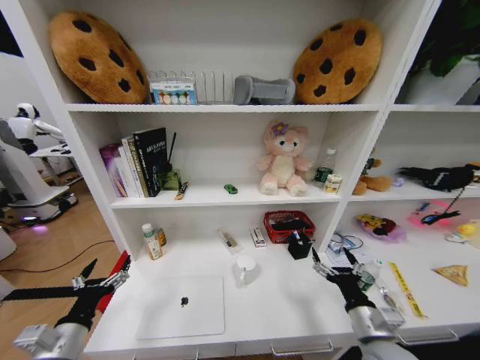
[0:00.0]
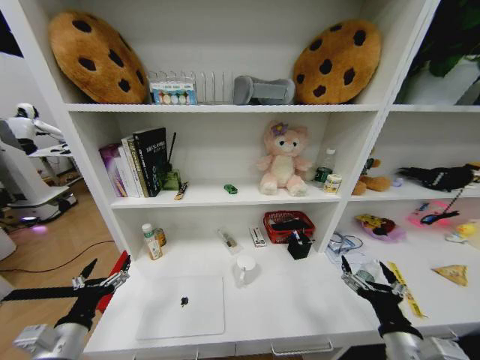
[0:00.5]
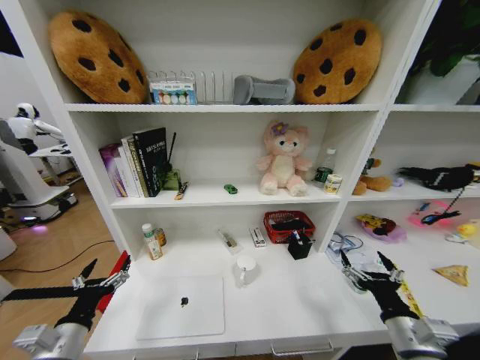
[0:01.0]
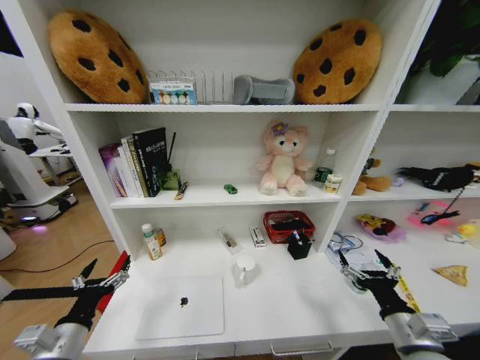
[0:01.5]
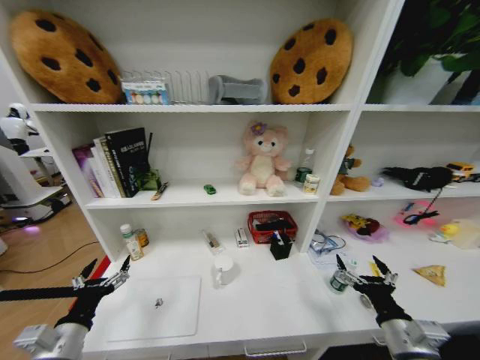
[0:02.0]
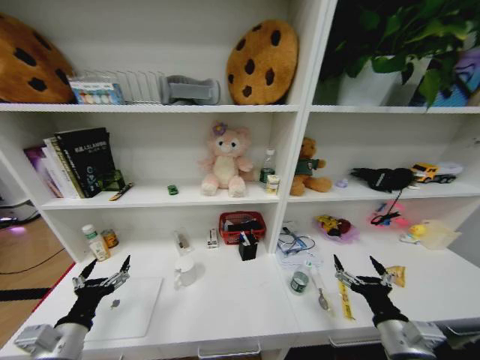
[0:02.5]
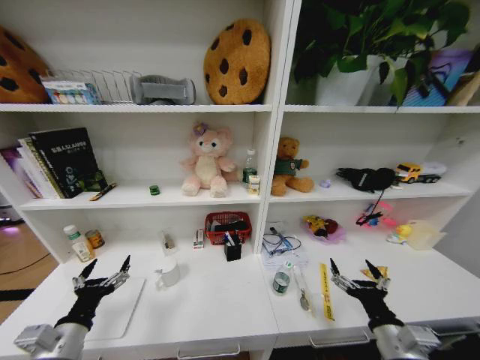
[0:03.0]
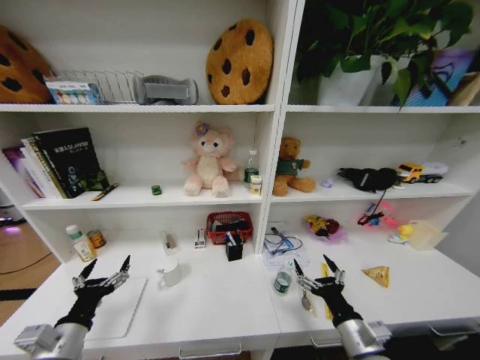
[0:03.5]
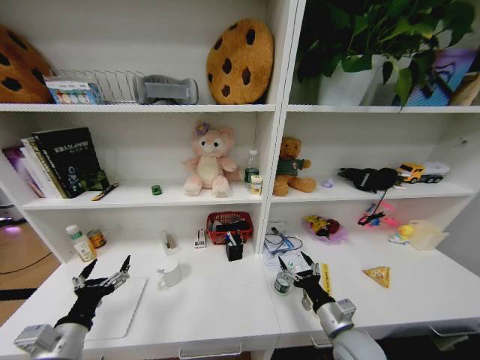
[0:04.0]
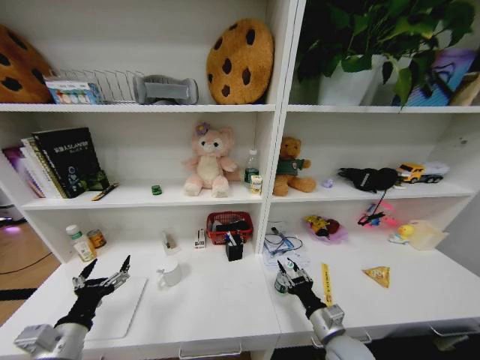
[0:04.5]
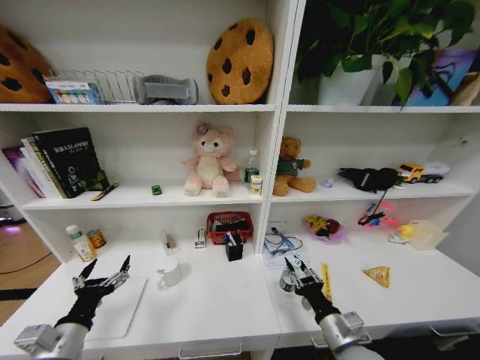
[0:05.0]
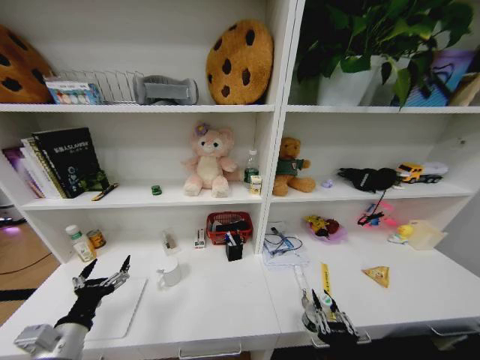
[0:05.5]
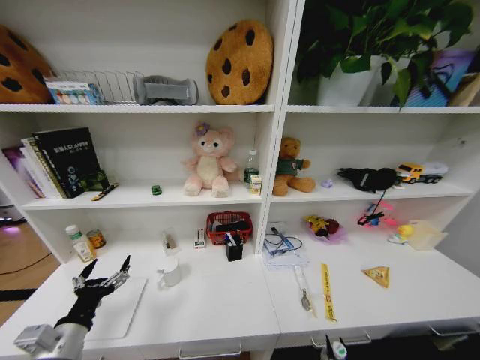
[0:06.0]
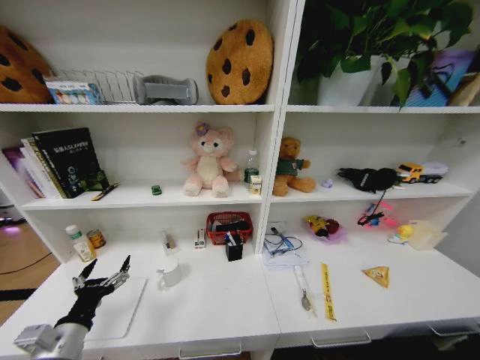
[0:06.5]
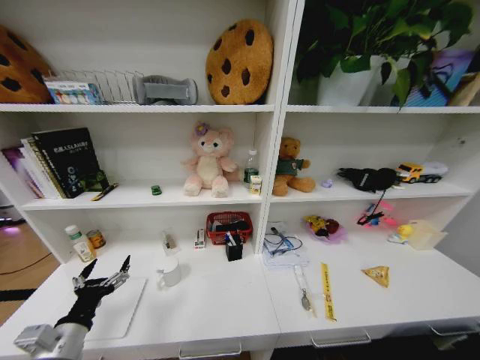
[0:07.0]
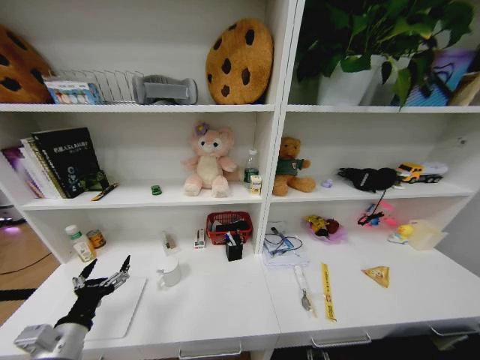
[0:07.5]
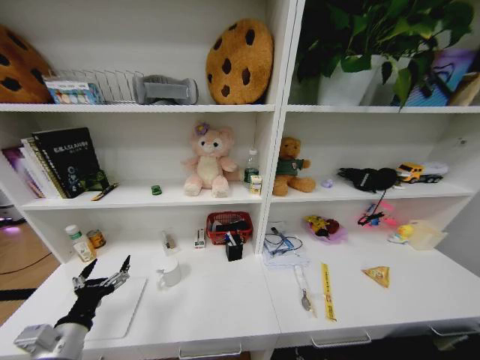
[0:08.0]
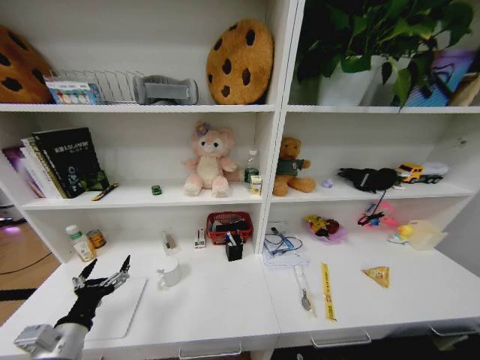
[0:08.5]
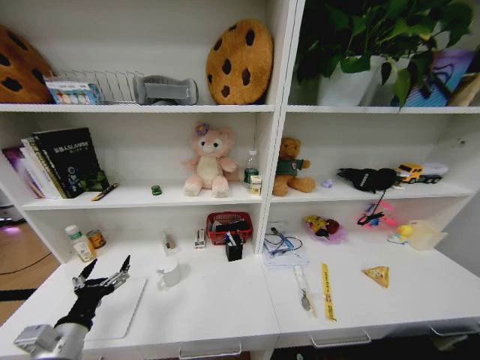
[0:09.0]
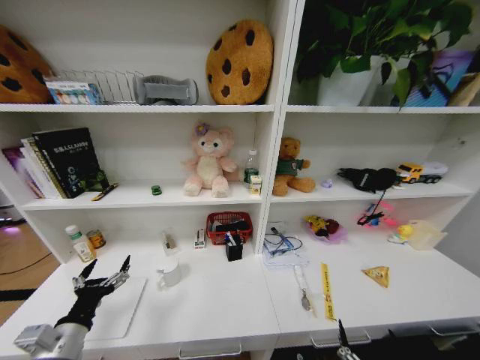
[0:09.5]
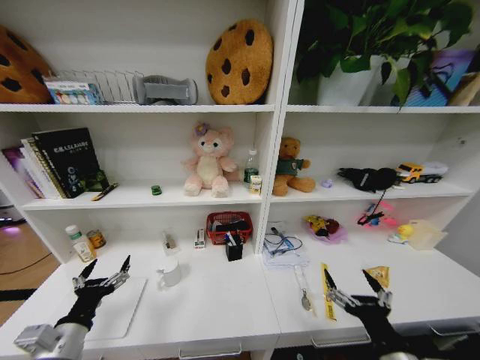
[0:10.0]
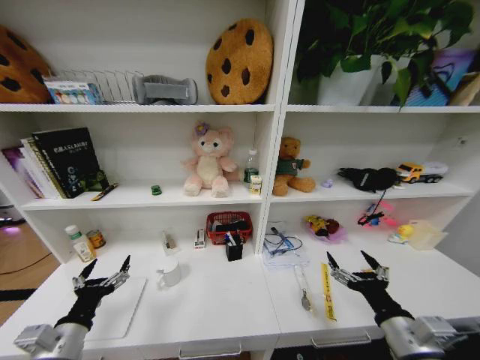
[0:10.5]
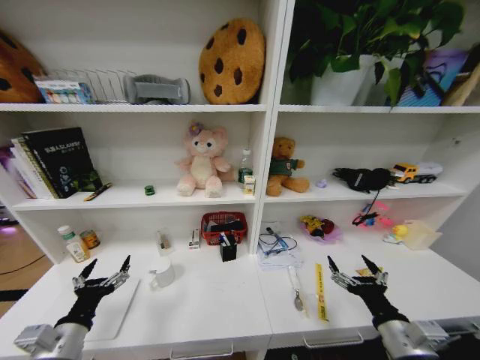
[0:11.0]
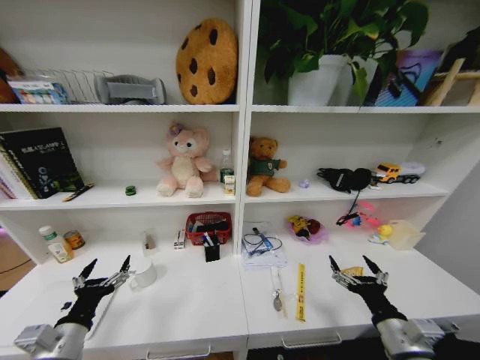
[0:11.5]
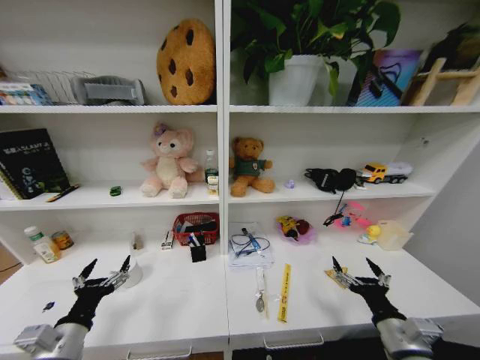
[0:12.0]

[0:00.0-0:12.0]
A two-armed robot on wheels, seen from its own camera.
Task of the whole recording: Organize the objects on the table.
0:00.0 to 0:02.0: The right gripper shifts by approximately 5 cm.
0:02.0 to 0:04.0: The right gripper shifts approximately 10 cm to the left, downward and forward.
0:04.0 to 0:06.0: The right gripper travels backward by about 25 cm, and closes its fingers.
0:08.0 to 0:10.0: The right gripper moves upward, some 40 cm.
0:10.0 to 0:12.0: The right gripper goes approximately 10 cm forward and to the right.

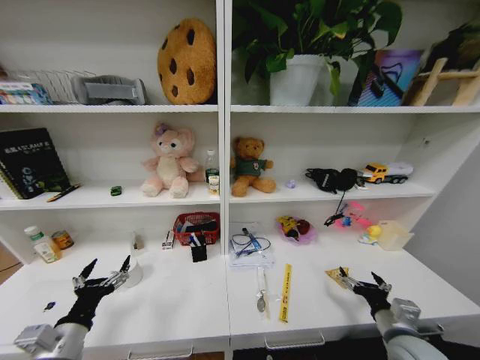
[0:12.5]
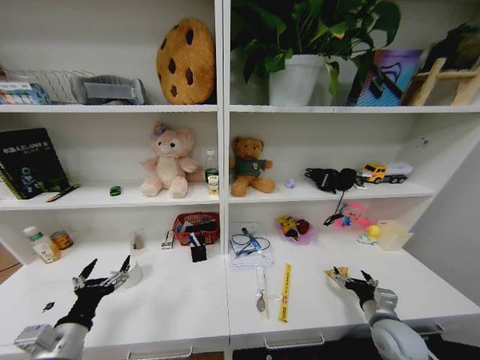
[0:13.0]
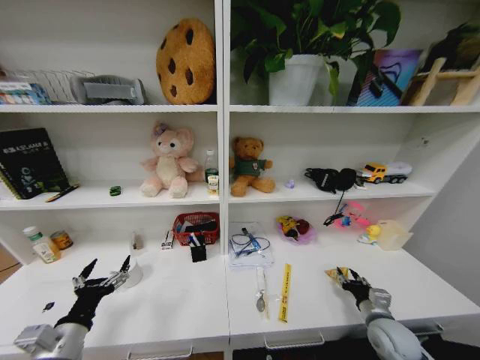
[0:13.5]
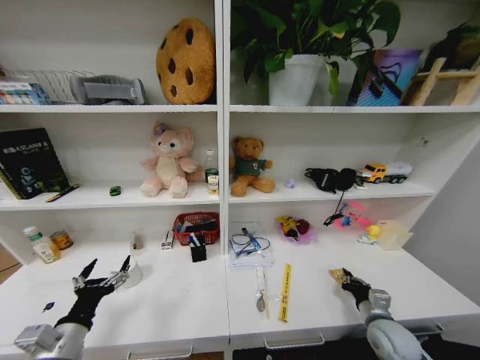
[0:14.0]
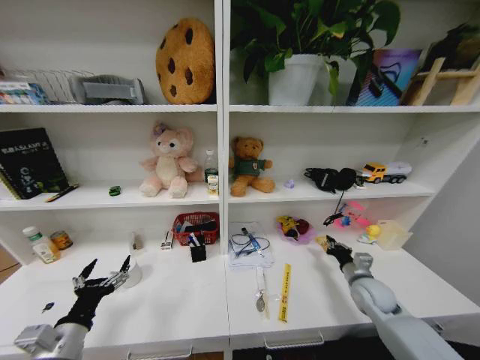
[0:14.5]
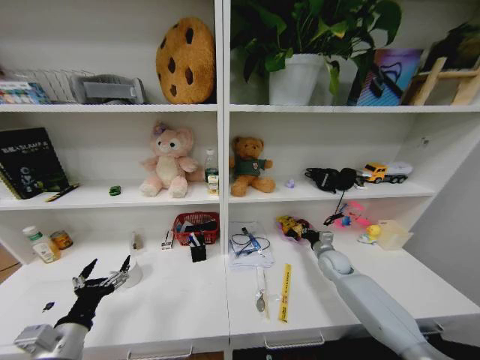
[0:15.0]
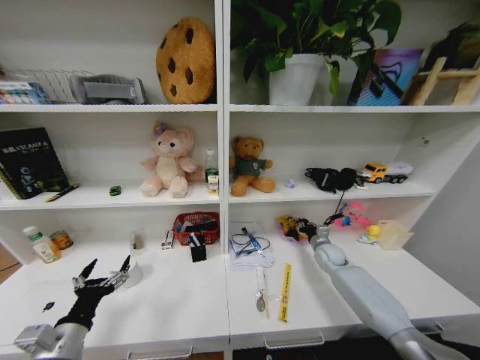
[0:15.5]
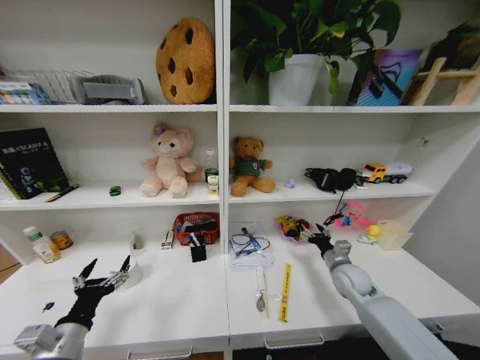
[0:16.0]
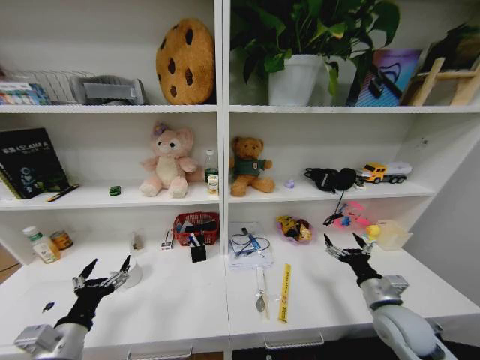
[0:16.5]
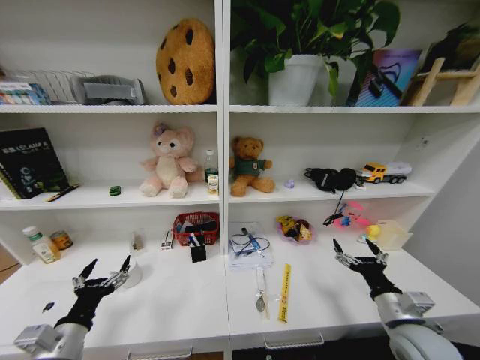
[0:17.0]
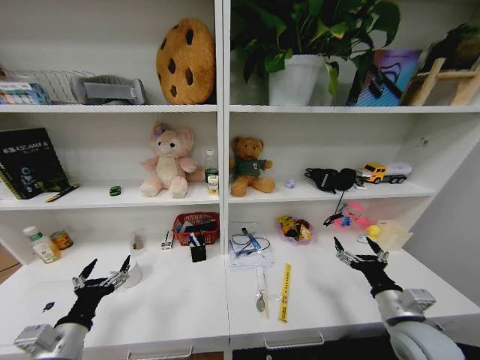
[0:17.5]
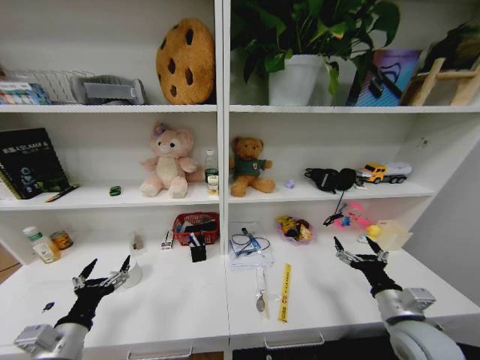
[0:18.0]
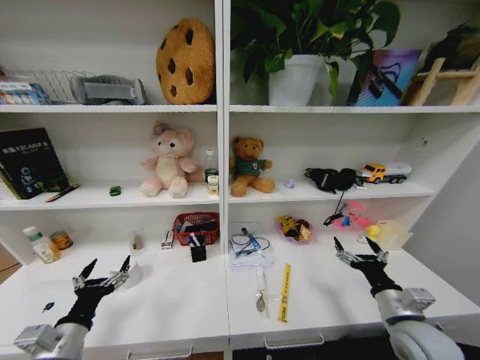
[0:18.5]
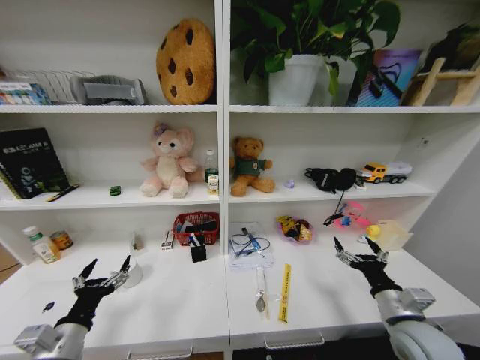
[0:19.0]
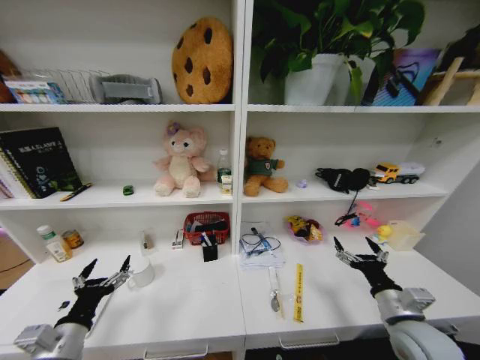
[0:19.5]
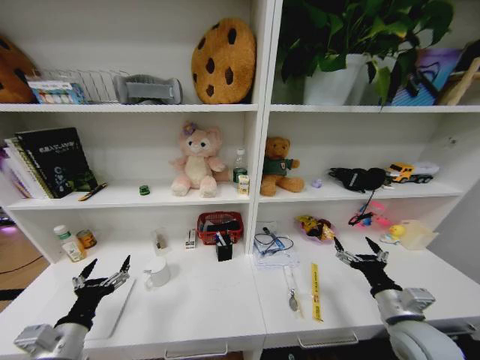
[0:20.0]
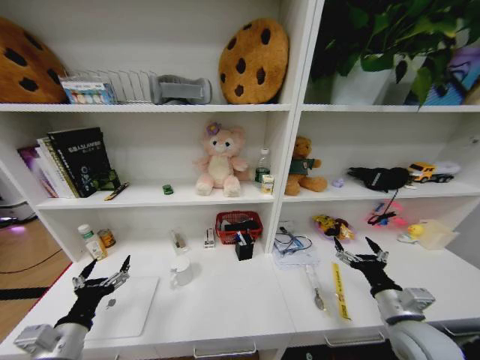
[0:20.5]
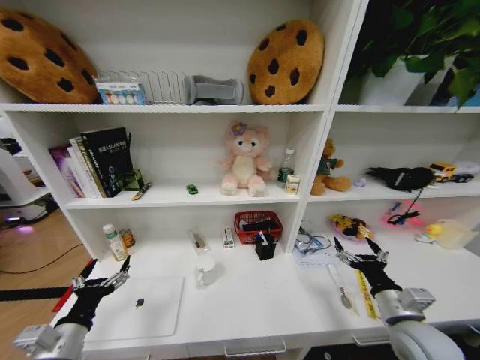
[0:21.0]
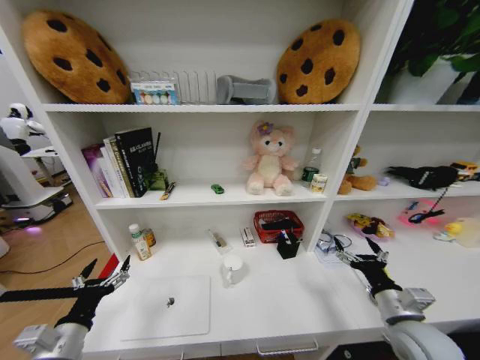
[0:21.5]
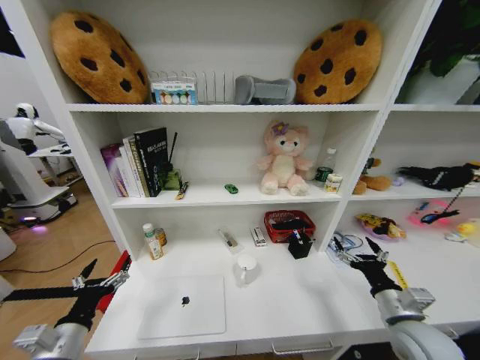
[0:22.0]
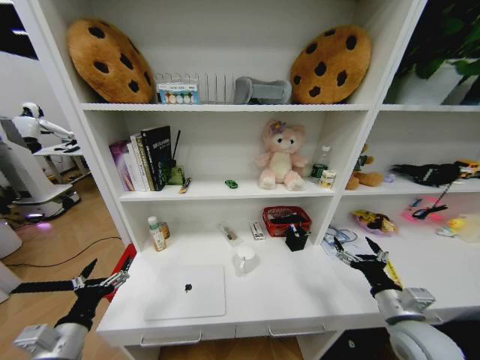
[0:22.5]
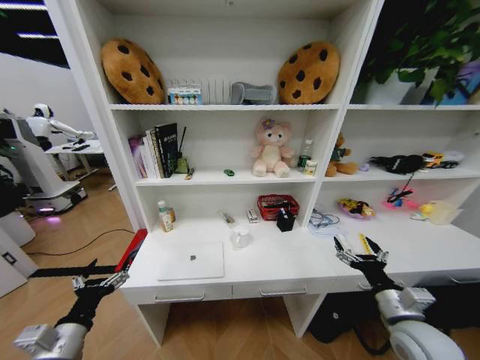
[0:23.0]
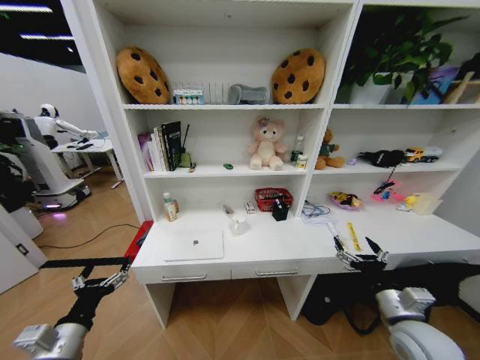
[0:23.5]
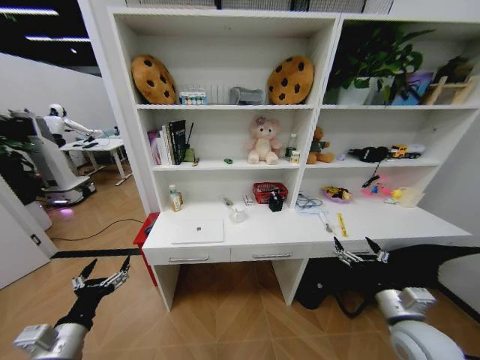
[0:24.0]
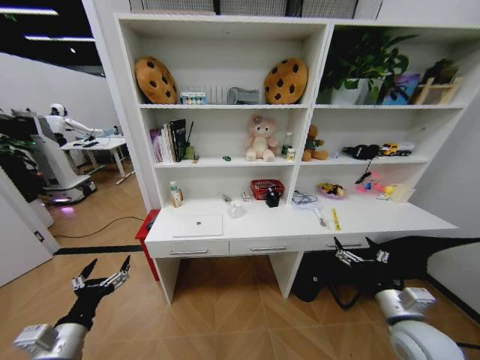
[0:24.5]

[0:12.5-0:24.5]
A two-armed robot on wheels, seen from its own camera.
Task of the whole recording: Organize the objects on the table.
0:12.5 to 0:14.5: The right gripper is displaced forward by some 15 cm, and closes up.
0:14.5 to 0:16.5: The right gripper goes forward and returns, about 15 cm each way, and opens.
0:16.5 to 0:18.5: The right gripper shifts by approximately 5 cm.
